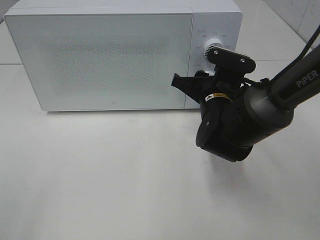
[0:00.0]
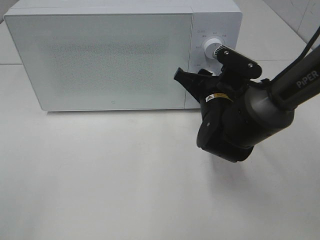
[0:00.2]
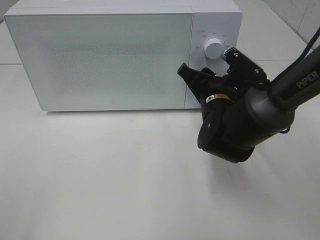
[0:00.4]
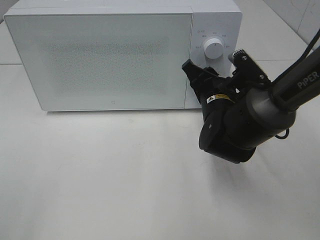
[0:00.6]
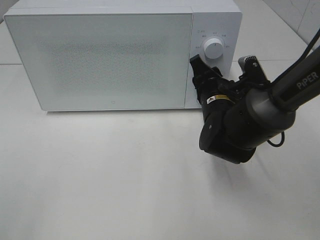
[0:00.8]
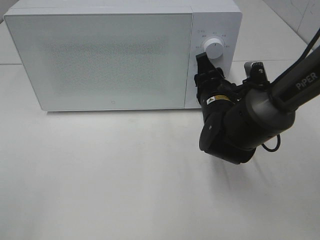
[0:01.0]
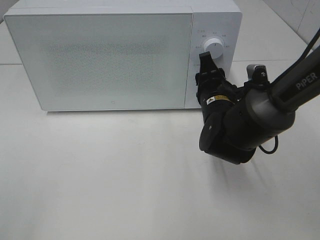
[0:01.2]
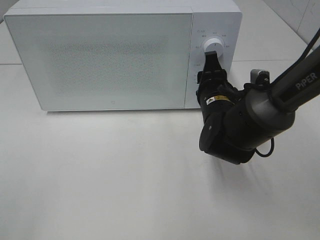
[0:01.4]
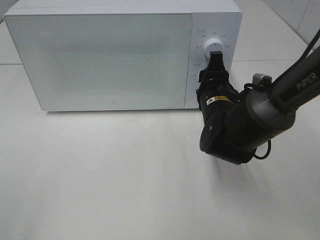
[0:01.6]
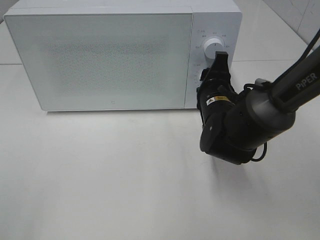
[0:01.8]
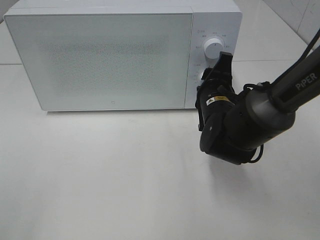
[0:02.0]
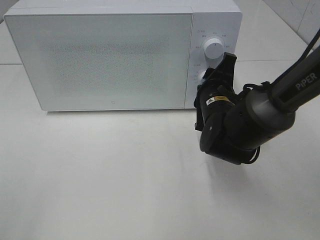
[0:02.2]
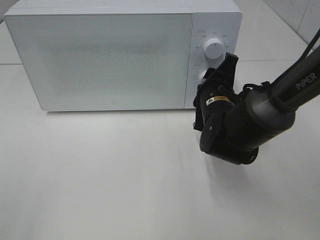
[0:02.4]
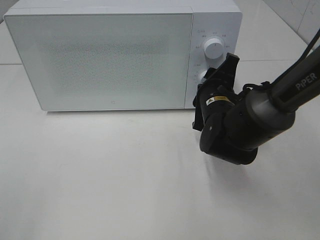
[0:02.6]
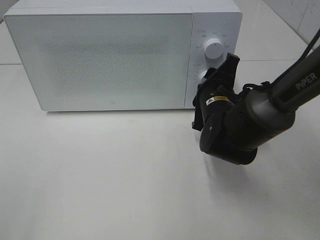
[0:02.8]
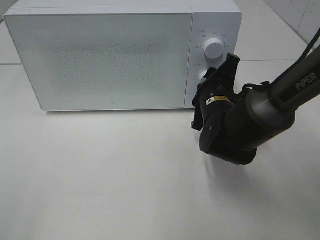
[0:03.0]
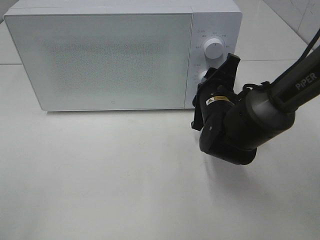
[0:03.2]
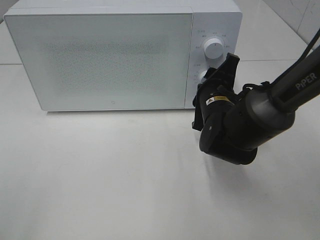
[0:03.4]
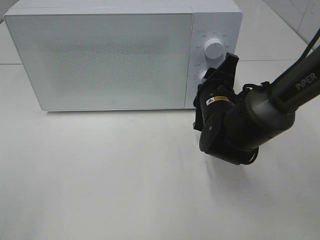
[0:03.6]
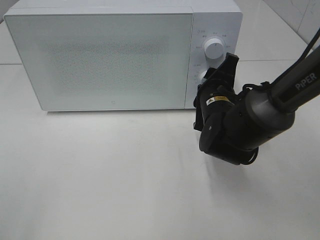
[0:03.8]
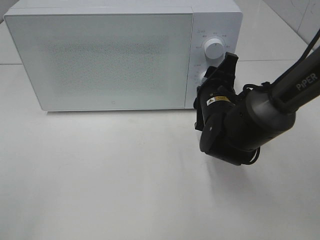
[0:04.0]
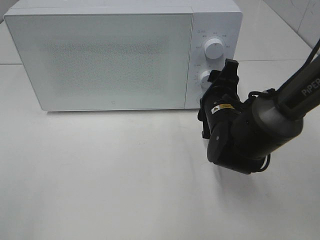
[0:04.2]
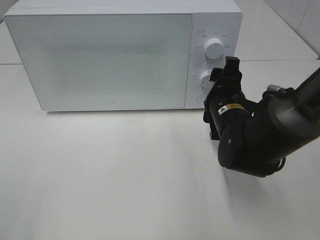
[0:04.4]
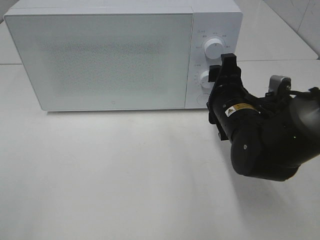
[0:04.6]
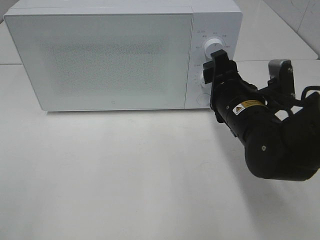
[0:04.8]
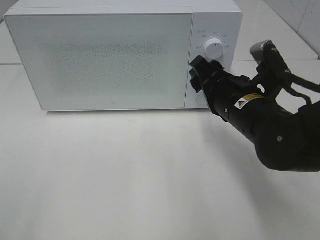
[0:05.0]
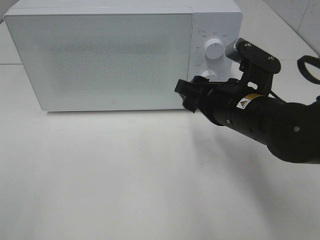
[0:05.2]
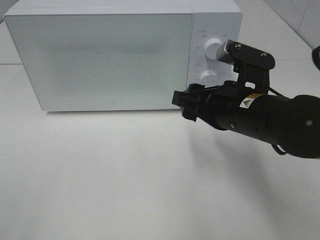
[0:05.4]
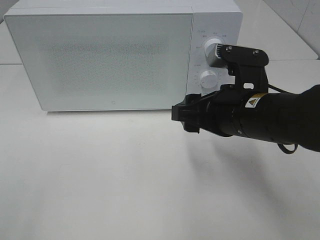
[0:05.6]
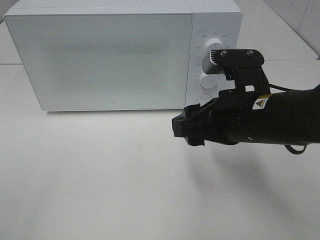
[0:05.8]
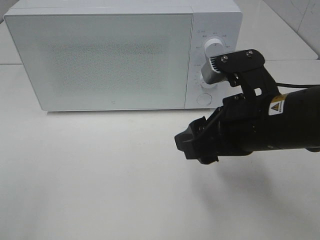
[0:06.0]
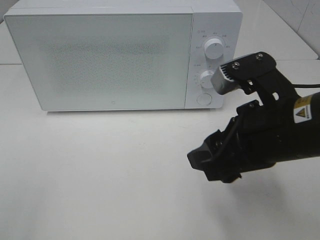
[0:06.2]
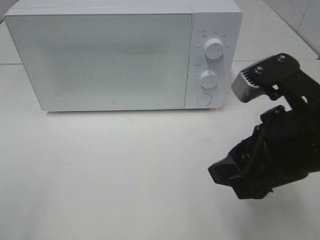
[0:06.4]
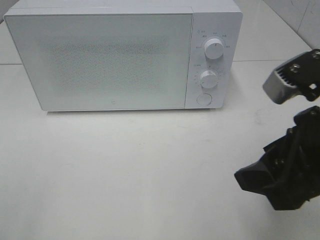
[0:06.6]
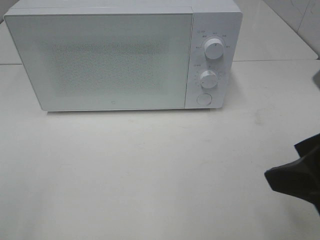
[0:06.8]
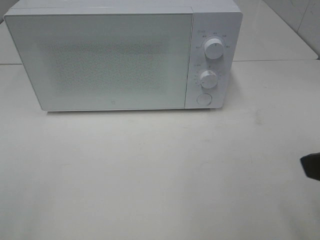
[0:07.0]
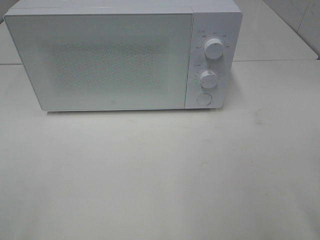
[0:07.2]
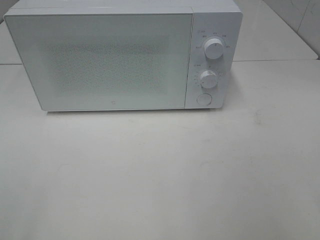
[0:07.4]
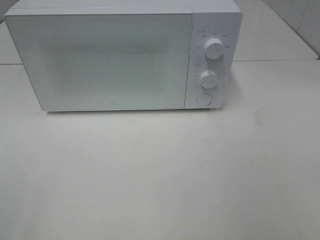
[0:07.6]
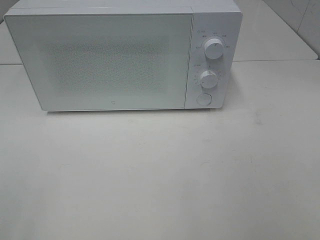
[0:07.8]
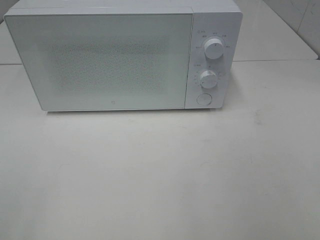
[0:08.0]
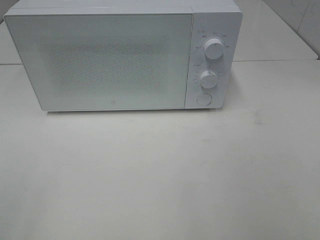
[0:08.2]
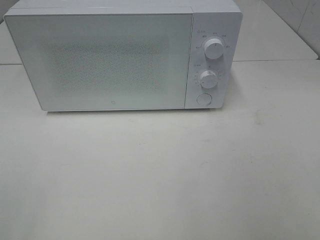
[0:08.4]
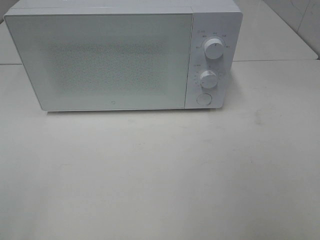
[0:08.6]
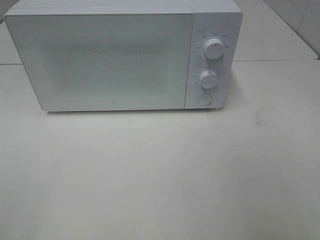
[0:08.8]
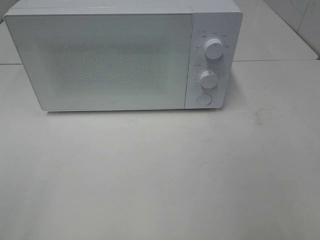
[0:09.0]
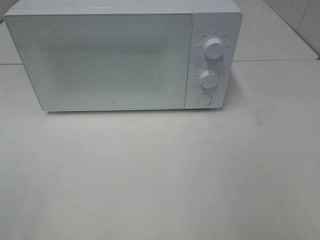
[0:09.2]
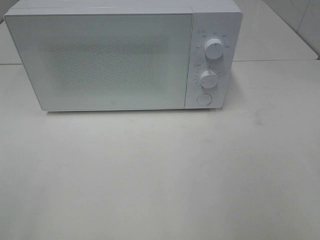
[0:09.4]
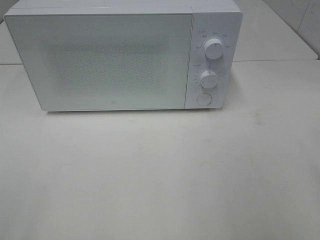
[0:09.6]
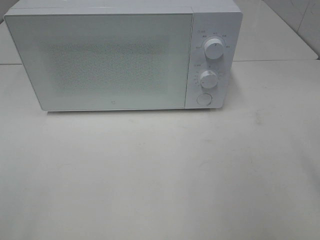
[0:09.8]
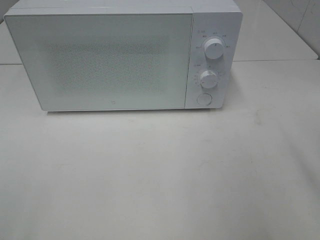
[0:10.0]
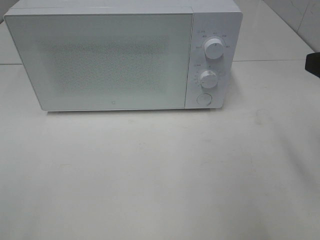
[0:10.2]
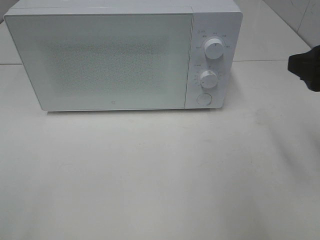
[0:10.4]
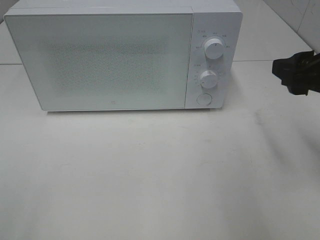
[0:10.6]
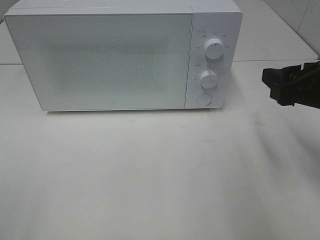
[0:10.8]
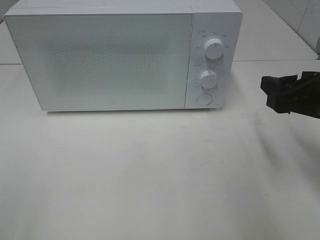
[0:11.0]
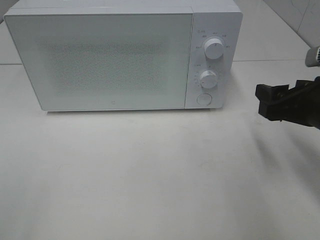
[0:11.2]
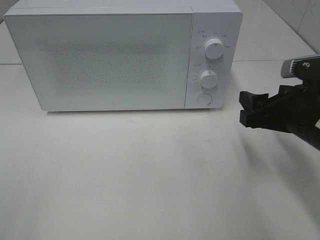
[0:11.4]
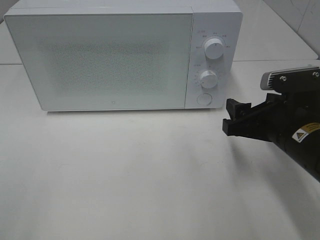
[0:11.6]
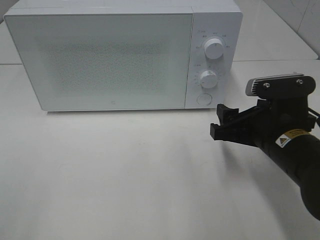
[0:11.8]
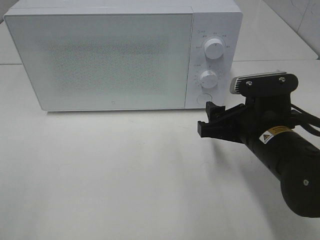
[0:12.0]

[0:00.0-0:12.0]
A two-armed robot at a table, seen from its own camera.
Task of the whole recording: Heat the burger.
Step, 0:00.0 to 0:04.4: Right hand: twist timer button.
0:03.0 to 0:04.4: The grippers move only a little.
0:04.4 to 0:06.0: The right gripper moves backward and upward, approximately 15 cm.
0:06.0 to 0:07.6: The right gripper travels backward, to the right and upward by about 25 cm.
0:09.0 to 0:10.4: The right gripper is displaced forward by roughly 15 cm.
0:10.4 to 0:12.0: The right gripper shifts roughly 15 cm downward and to the left.

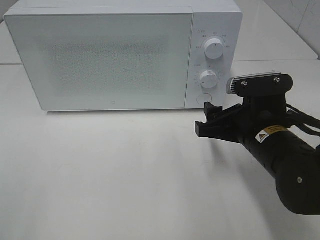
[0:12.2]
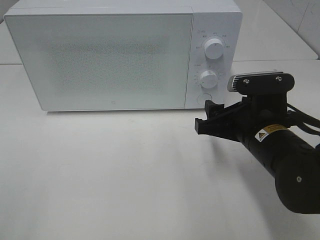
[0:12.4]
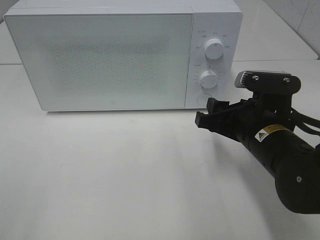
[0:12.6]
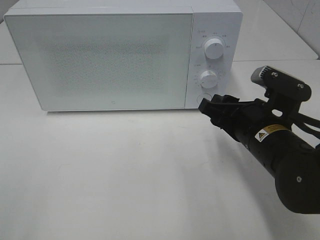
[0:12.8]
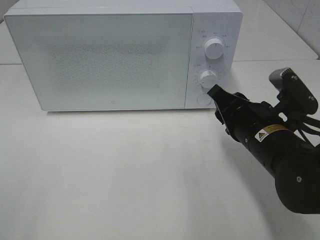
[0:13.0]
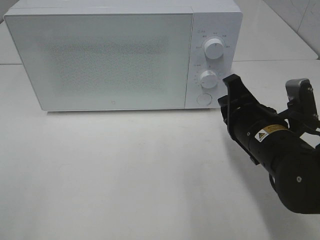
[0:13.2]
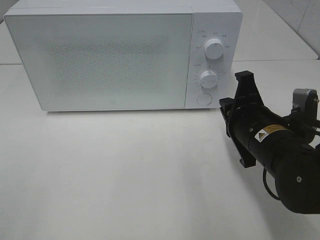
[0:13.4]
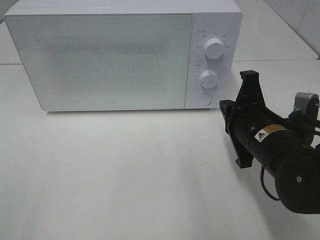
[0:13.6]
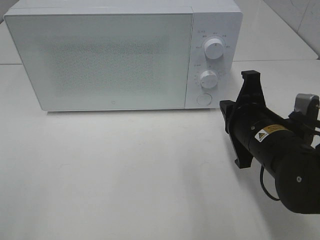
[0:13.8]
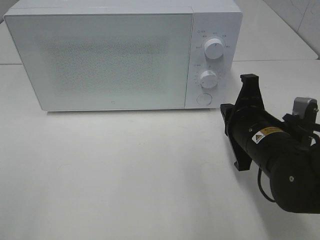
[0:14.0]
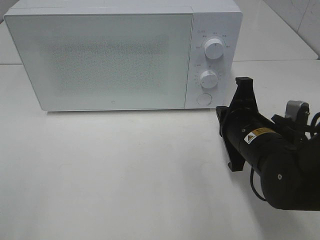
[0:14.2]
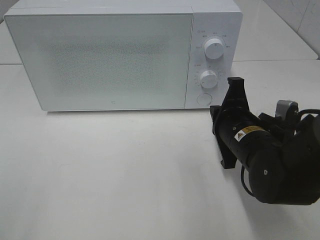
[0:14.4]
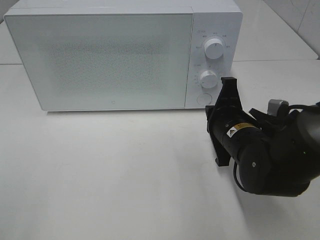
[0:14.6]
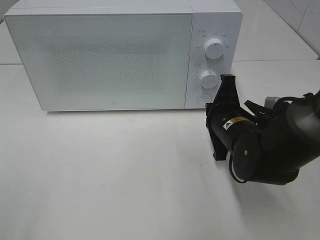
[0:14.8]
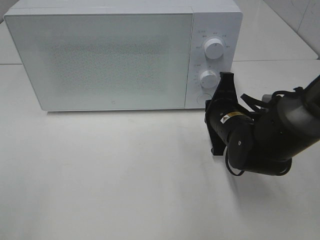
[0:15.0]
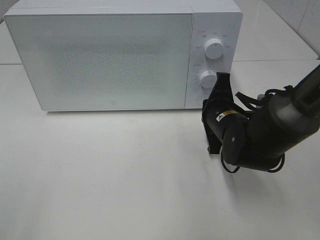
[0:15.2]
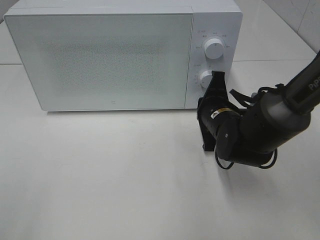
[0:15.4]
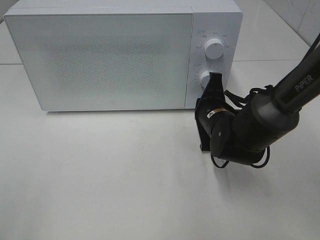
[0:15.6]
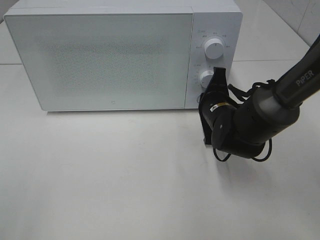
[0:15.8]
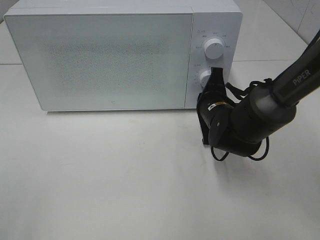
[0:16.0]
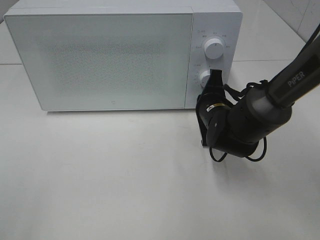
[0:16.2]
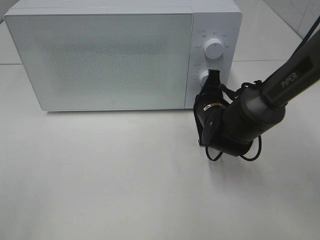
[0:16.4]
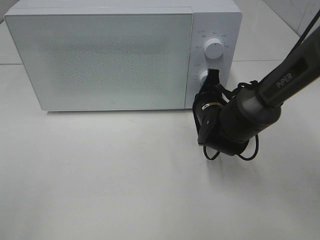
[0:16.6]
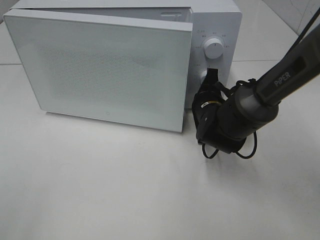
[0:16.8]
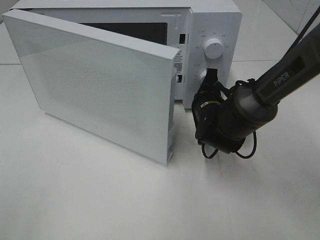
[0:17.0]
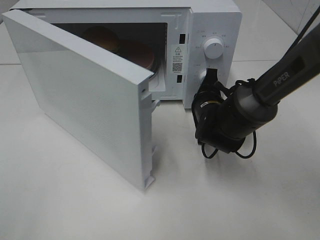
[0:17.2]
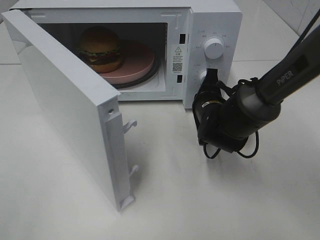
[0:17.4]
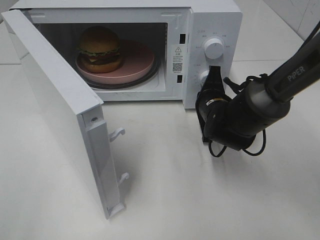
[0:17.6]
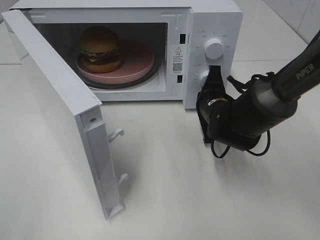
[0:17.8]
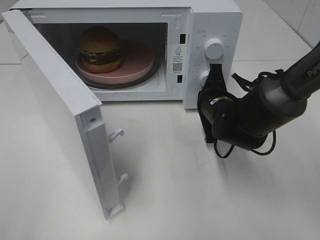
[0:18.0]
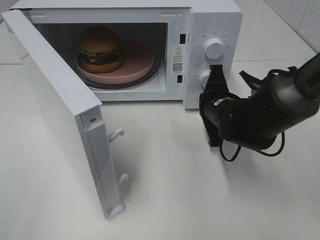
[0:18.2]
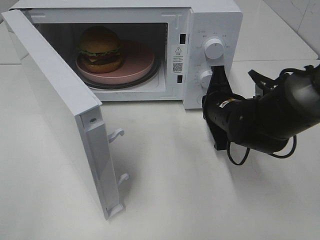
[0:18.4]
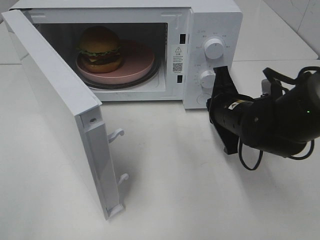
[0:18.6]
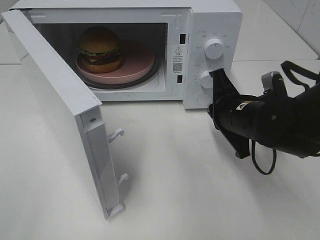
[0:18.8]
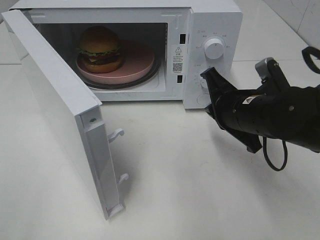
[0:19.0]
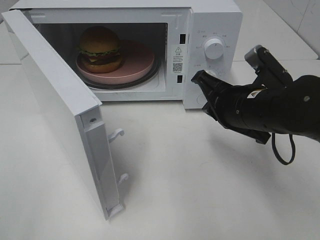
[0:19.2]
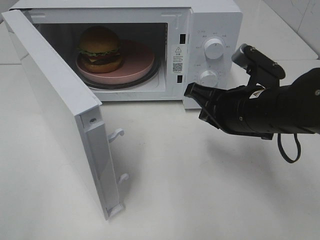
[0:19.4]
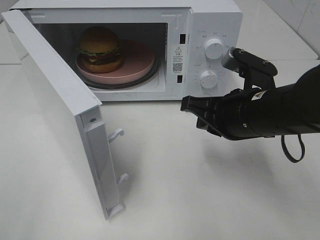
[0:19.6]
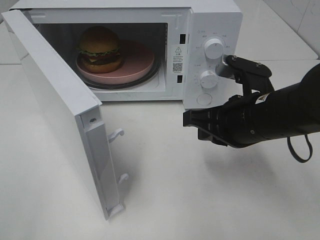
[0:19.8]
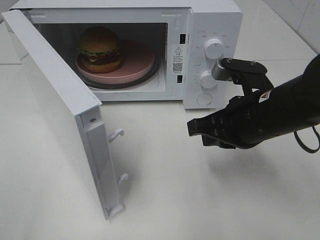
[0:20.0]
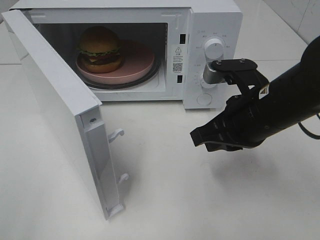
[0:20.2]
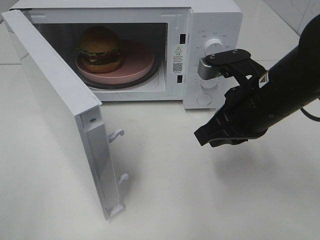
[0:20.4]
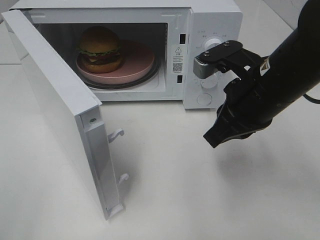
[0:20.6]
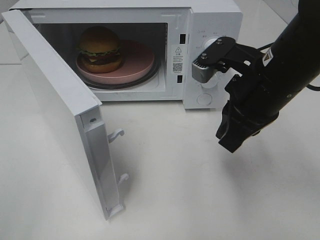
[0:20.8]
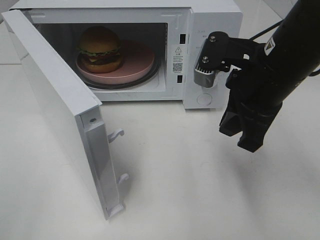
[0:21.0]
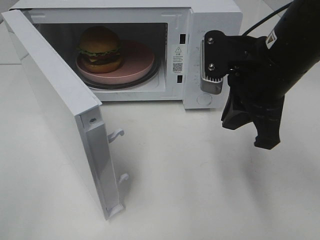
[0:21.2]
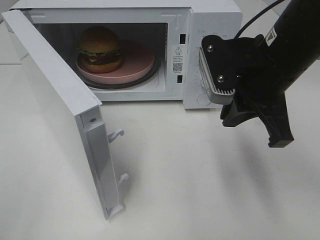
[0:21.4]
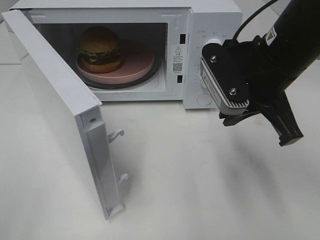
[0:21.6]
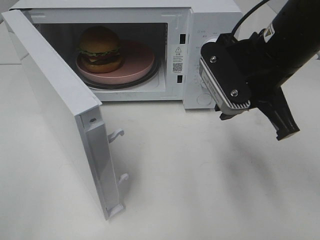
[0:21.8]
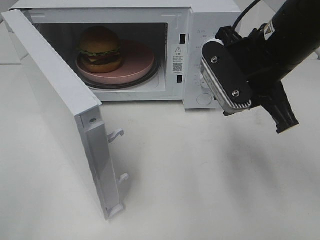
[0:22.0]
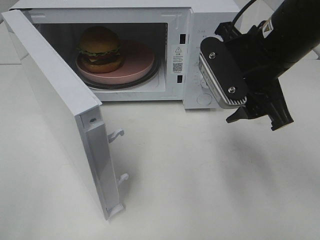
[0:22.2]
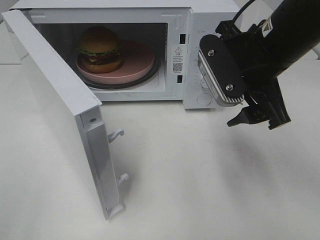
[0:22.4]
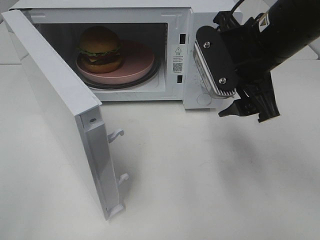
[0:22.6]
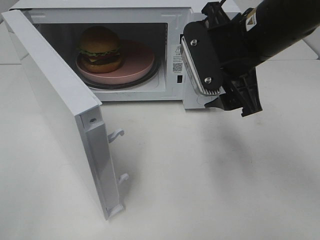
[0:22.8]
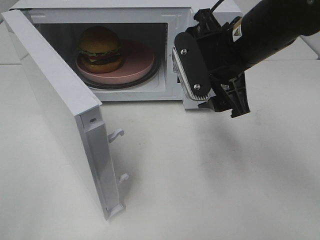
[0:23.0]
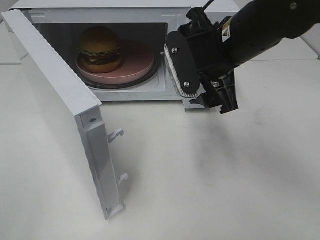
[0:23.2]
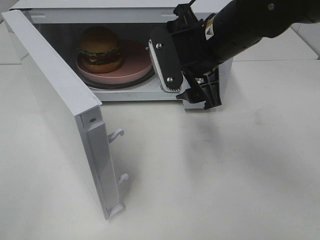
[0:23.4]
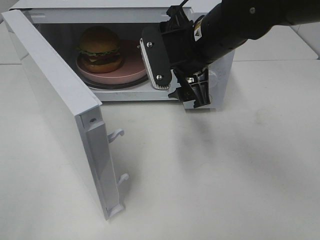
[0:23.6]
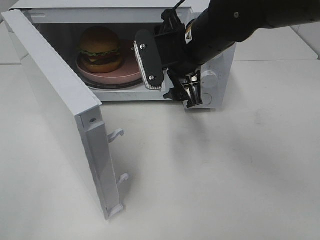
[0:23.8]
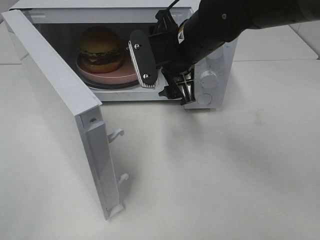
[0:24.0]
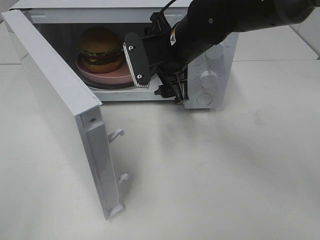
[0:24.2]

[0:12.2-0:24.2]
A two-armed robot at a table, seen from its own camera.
Task of the whole recording: Heat the burger.
Step, 0:12.2 to 0:18.6: Right hand: press the switch.
0:12.2 to 0:13.8: The right gripper closes its fingers.
0:13.8 to 0:15.2: The right gripper travels forward by some 10 cm.
0:15.2 to 0:16.6: The grippers make only small movements.
0:18.2 to 0:19.8: The right gripper travels backward and upward by some 10 cm.
0:19.8 to 0:21.2: The right gripper goes some 10 cm upward.
0:21.2 to 0:22.6: The right gripper opens up.
0:22.6 to 0:24.2: The right gripper shifts about 15 cm to the left, forward and downward.
